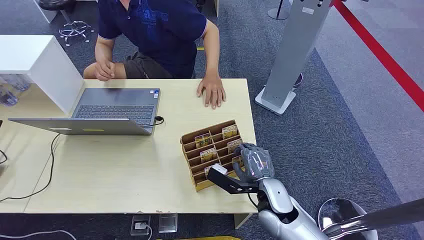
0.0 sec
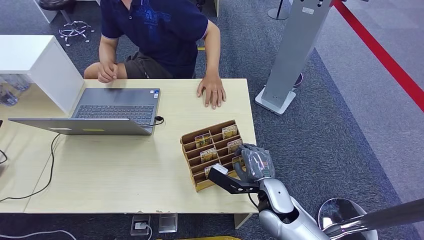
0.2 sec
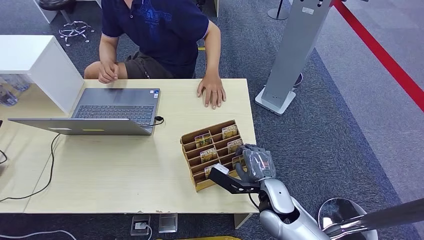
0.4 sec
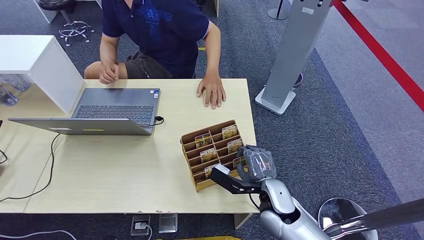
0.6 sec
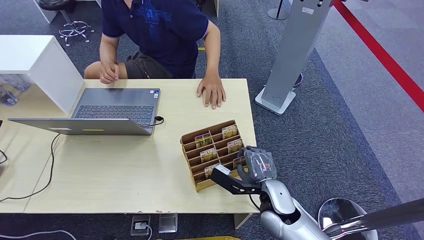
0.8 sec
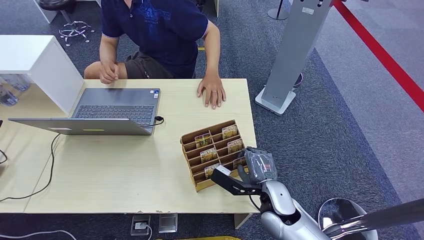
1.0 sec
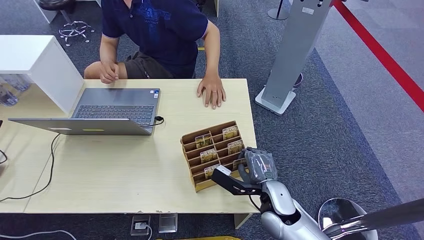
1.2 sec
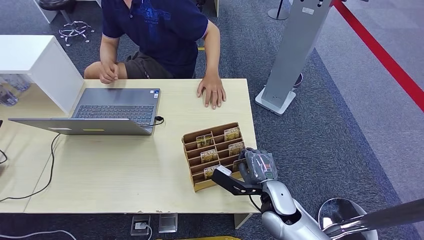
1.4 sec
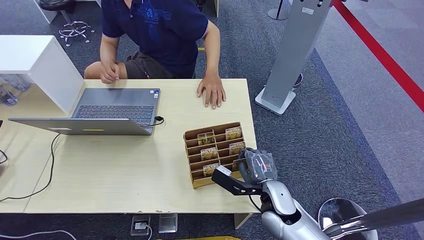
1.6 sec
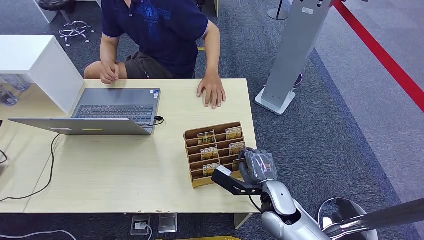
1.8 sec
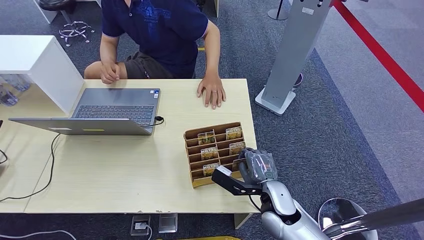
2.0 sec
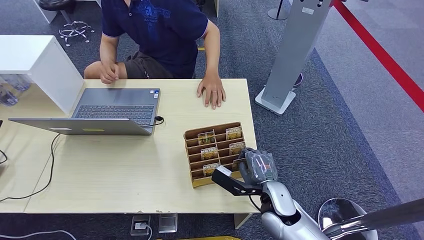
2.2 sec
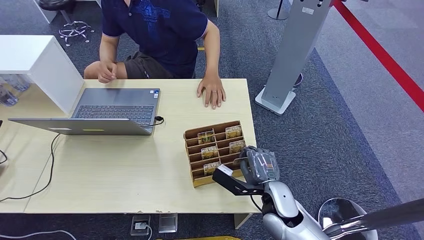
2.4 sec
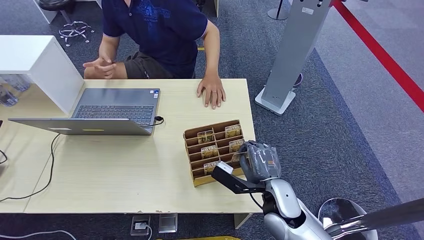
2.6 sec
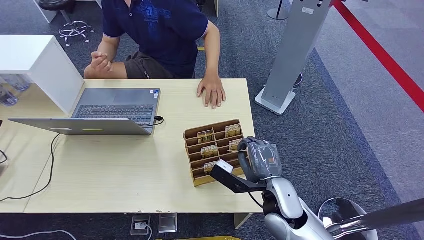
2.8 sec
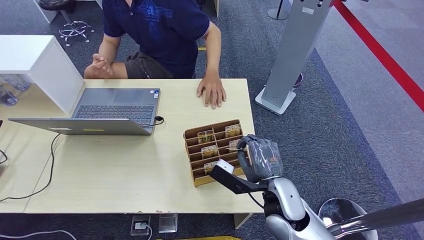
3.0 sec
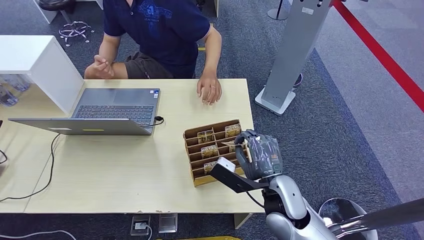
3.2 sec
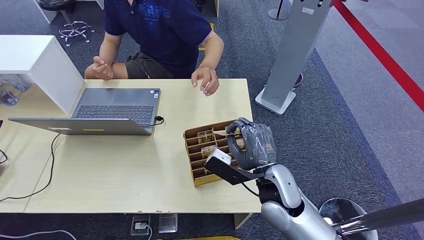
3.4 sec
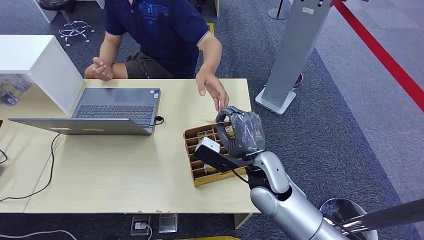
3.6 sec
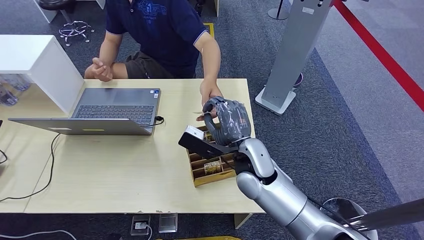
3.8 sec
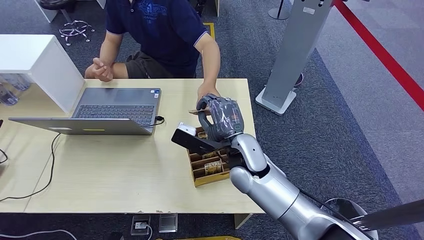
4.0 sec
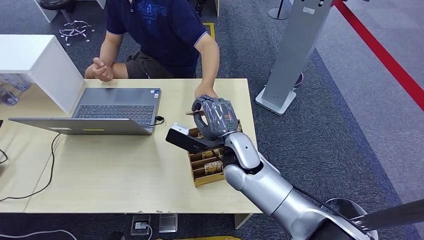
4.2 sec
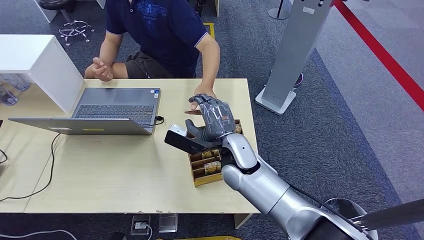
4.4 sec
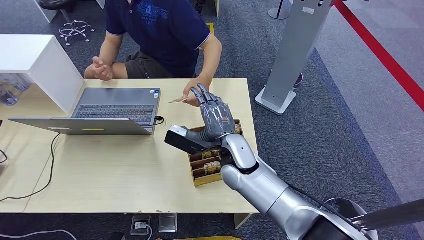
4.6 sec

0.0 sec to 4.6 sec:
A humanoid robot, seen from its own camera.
Step, 0.0 sec to 2.6 sec: Pick up the key card from the card box.
Step, 3.0 sec to 4.6 sec: Hand the key card to the target.
1.6 sec to 3.0 sec: The right hand is displaced upward by about 5 cm.
3.0 sec to 4.6 sec: The right hand is displaced to the left and forward by some 15 cm.

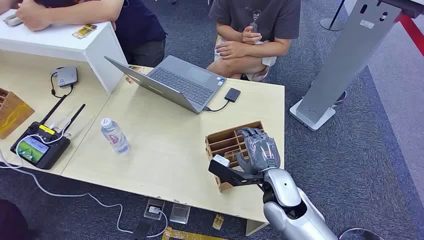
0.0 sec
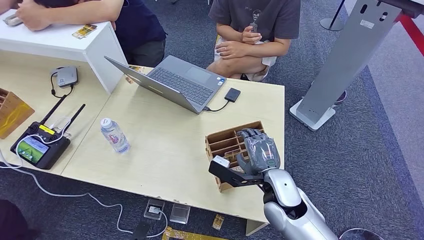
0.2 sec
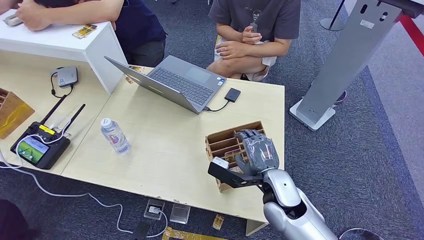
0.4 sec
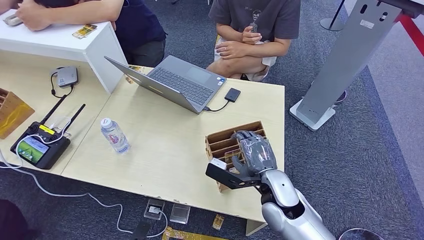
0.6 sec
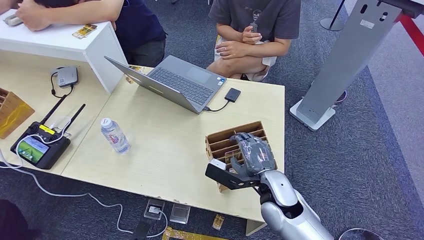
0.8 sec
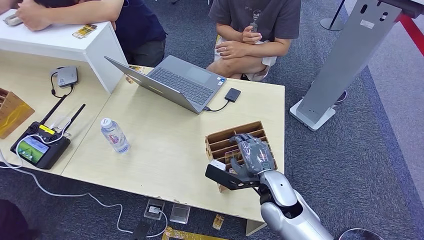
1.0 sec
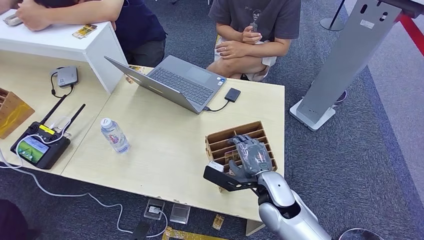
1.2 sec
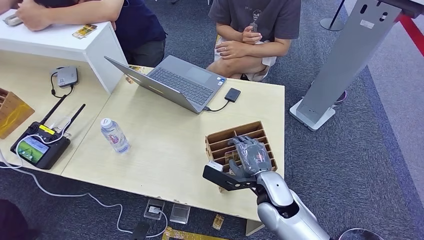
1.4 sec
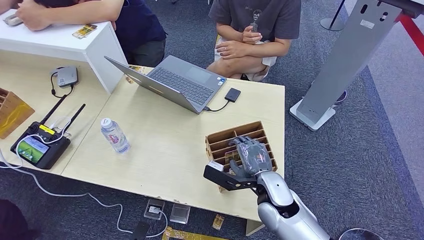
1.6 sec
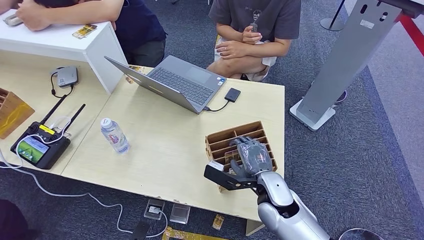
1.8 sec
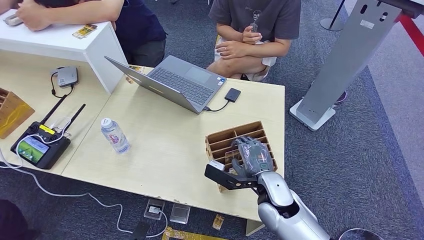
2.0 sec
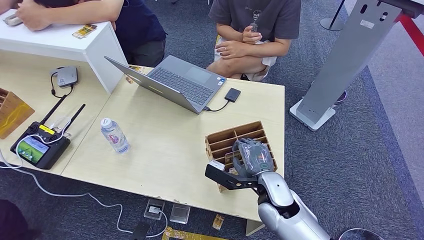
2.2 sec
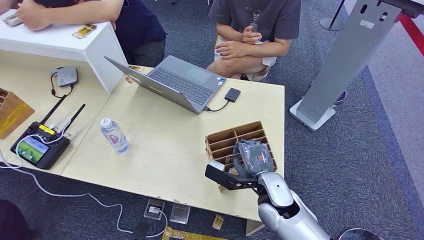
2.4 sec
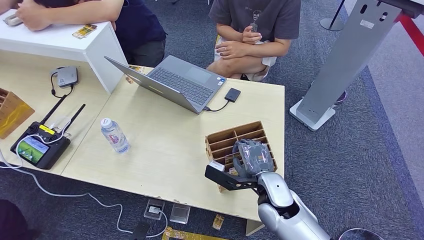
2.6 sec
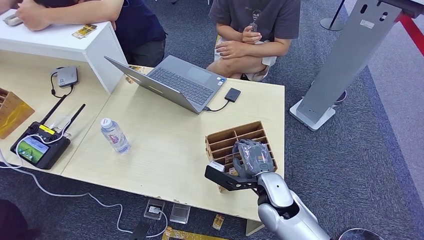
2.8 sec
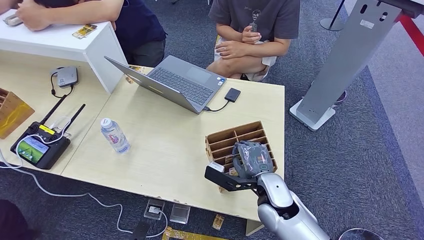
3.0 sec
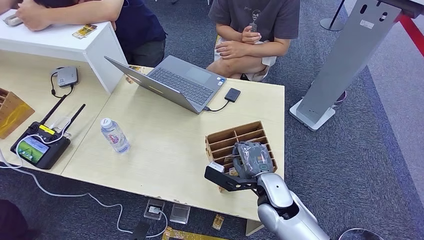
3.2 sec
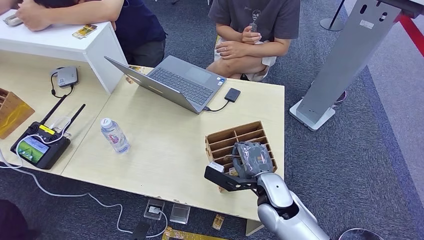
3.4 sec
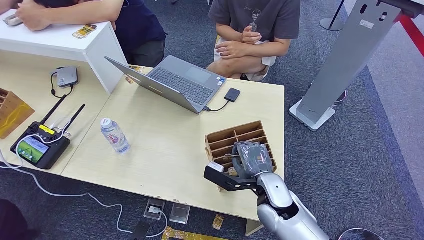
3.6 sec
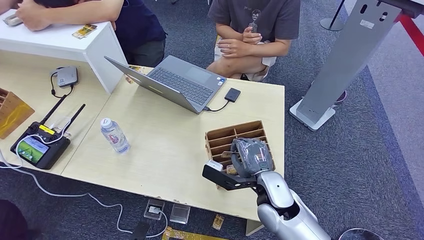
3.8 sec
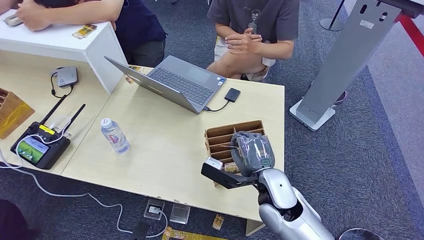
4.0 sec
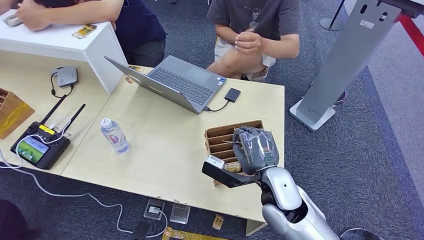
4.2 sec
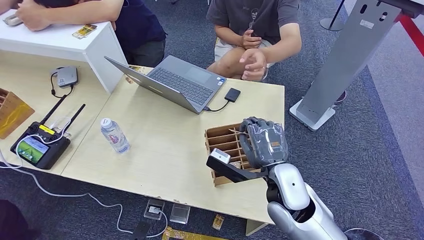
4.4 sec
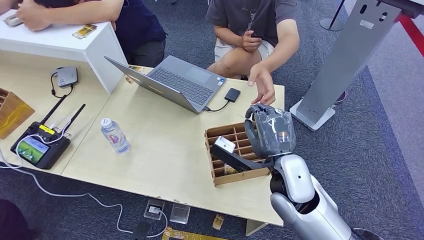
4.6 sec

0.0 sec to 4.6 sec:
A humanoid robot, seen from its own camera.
Step, 0.0 sec to 1.2 sec: Pick up the key card from the card box.
Step, 1.4 sec to 4.2 sec: Hand the key card to the target.
Step, 4.4 sec to 4.6 sec: Pick up the key card from the card box.
1.6 sec to 3.0 sec: The two hands keep their place.
3.0 sec to 4.6 sec: The right hand travels upward by roughly 10 cm.
